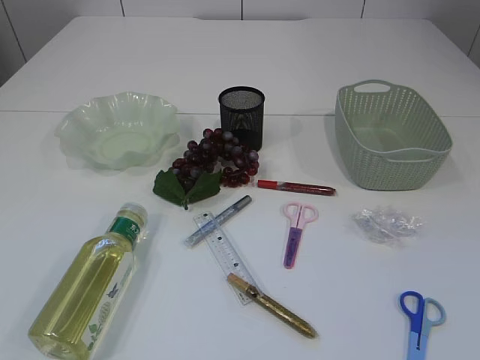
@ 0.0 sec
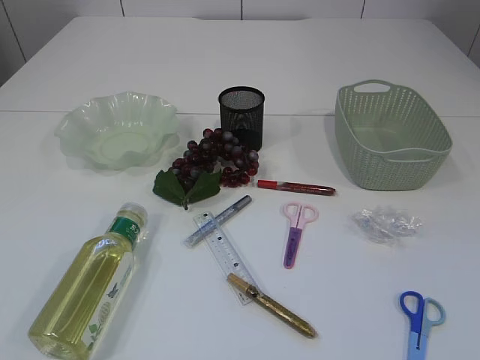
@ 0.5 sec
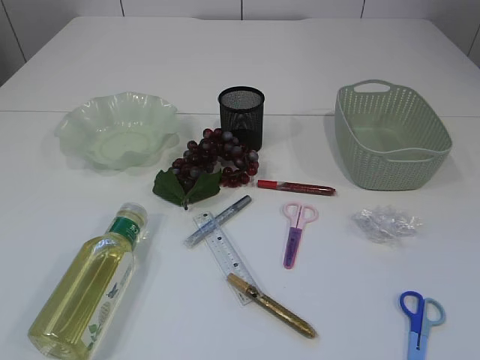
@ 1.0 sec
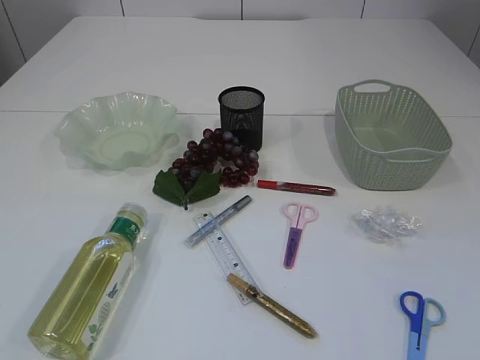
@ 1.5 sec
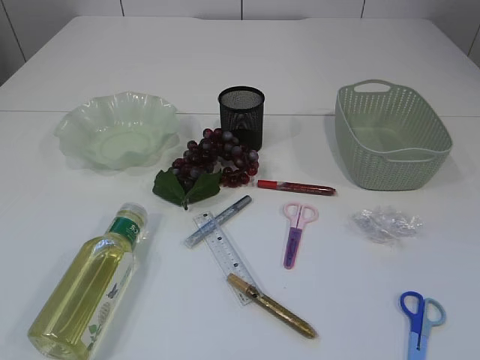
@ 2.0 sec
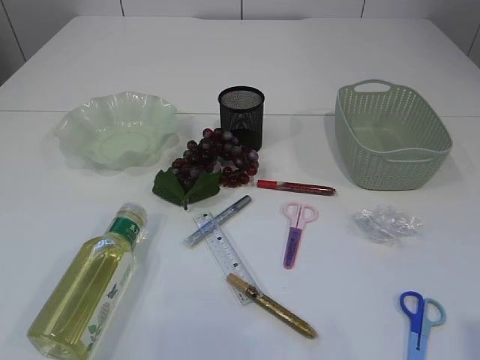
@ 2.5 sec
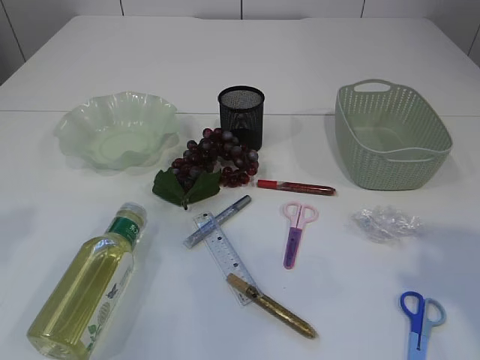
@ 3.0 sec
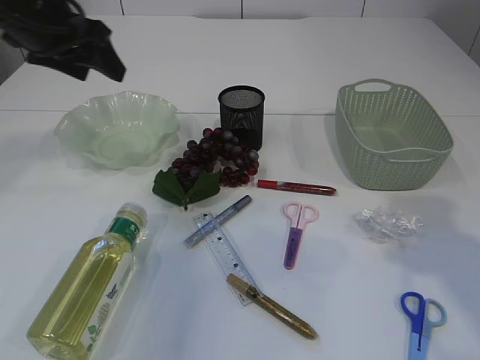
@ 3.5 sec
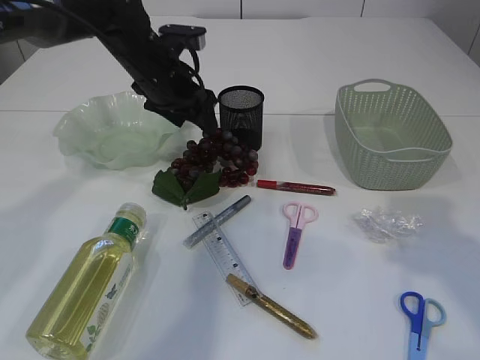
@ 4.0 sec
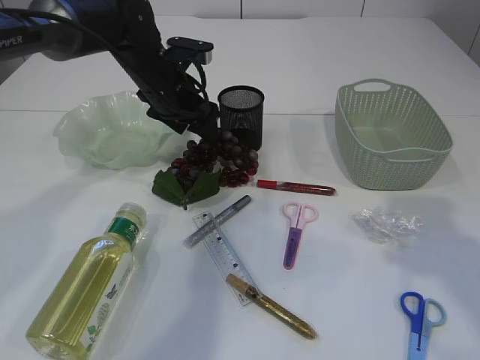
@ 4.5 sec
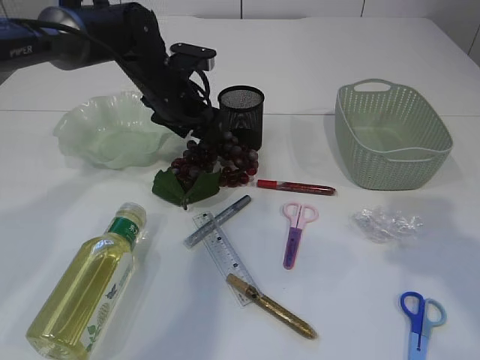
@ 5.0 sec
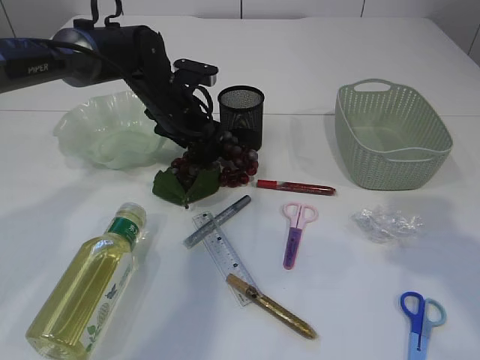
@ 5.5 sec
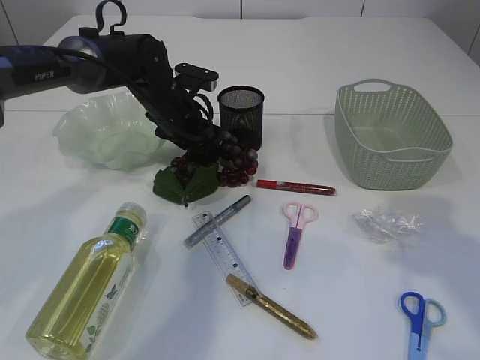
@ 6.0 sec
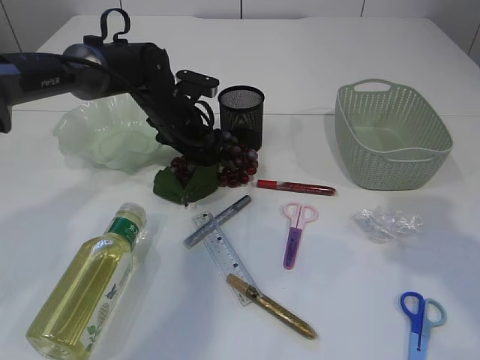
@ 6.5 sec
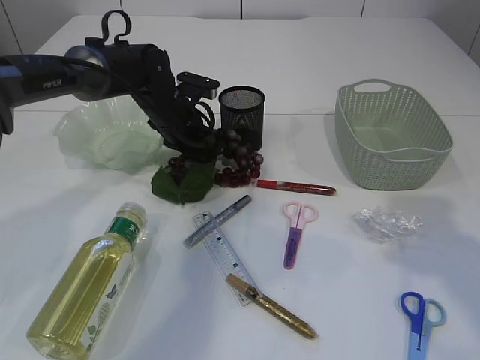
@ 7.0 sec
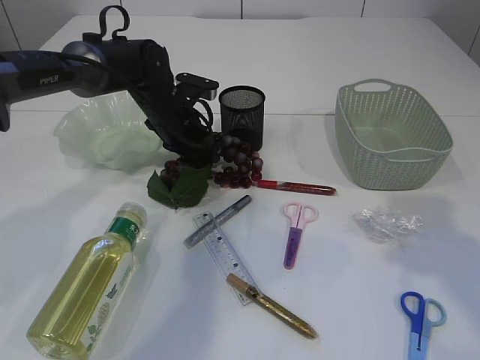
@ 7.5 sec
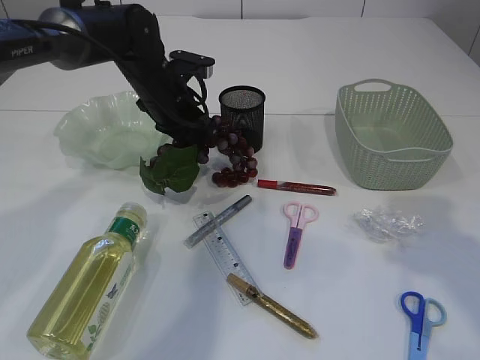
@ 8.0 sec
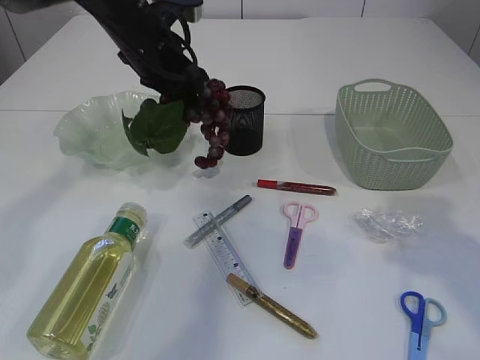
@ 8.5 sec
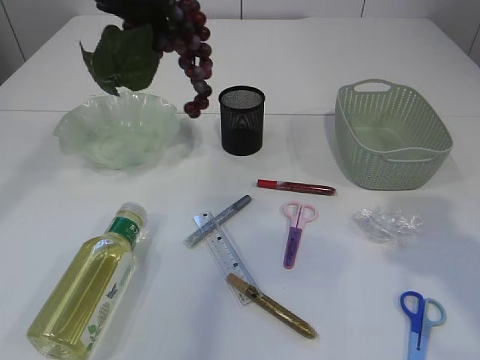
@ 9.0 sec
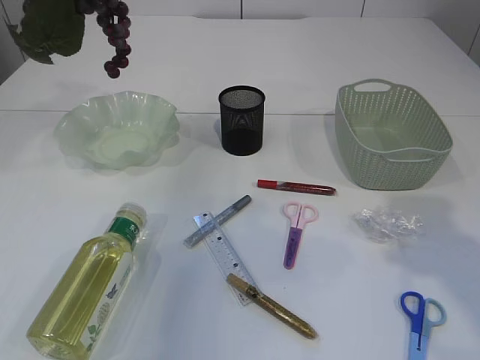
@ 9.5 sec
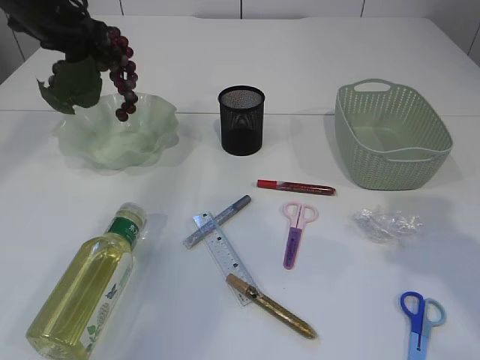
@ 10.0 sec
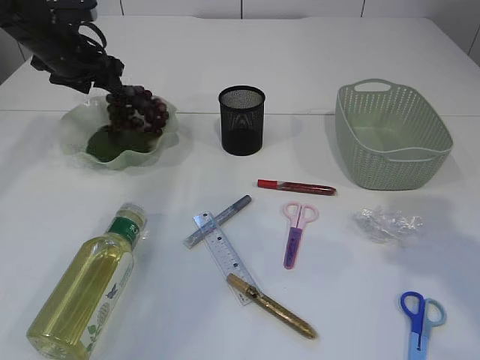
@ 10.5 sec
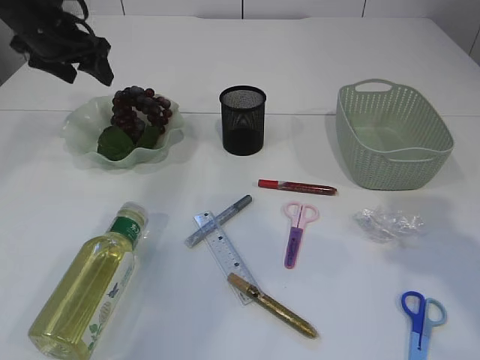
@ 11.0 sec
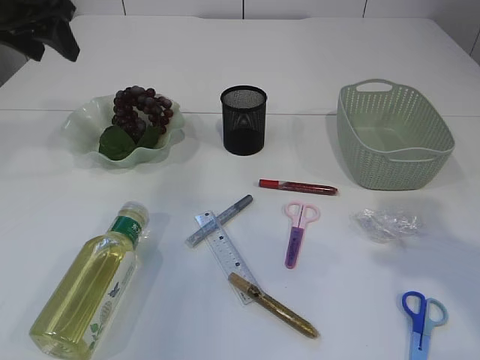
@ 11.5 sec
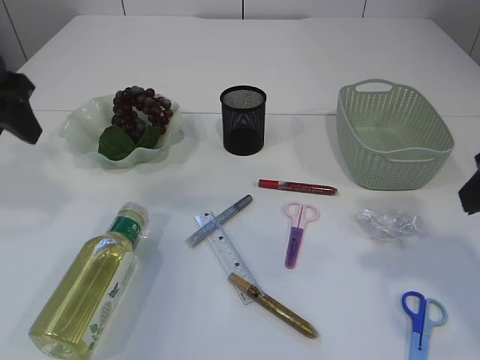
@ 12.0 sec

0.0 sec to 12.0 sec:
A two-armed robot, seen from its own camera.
Step, 0.0 sec to 9.0 sec: Pick up the grapes.
Step, 9.5 sec to 11.0 sec: Place the grapes in the plate.
2.0 sec to 4.0 sec: The left gripper moves forward and to the right, about 50 cm. Meanwhile the right gripper is displaced forward by approximately 20 cm.
4.0 sec to 6.0 sec: The left gripper heads downward, covering some 5 cm.
6.0 sec to 8.0 sec: The left gripper closes.
8.0 sec to 10.0 sec: The left gripper heads to the left and upward, covering some 20 cm.
10.0 sec to 12.0 sec: The left gripper shifts roughly 15 cm backward, and opens.

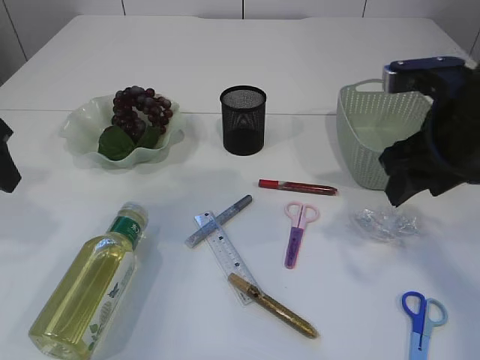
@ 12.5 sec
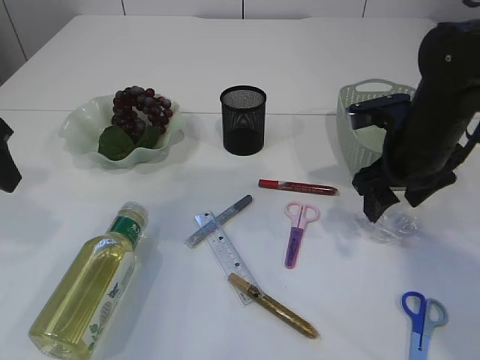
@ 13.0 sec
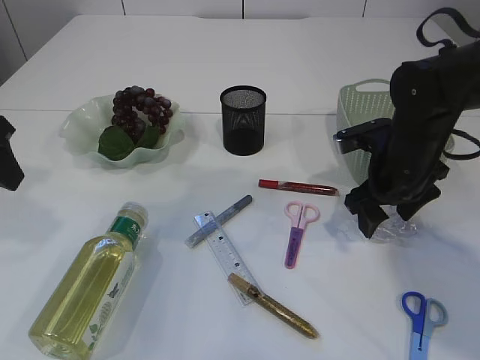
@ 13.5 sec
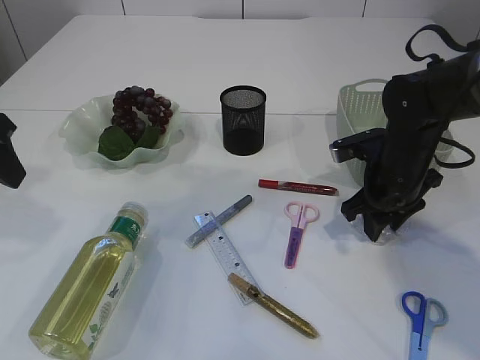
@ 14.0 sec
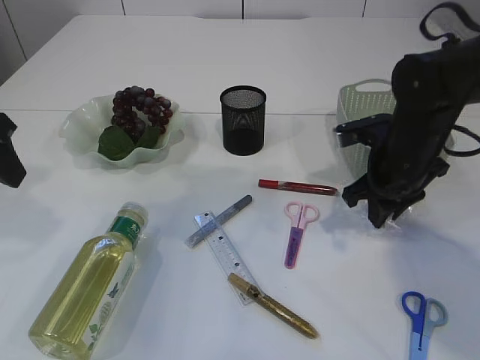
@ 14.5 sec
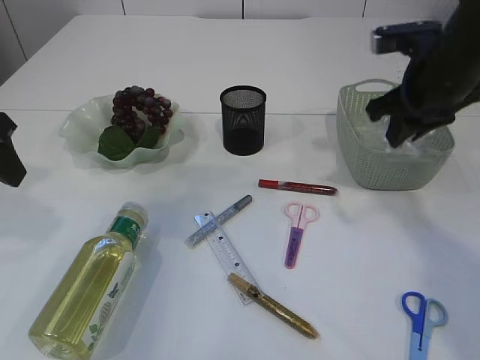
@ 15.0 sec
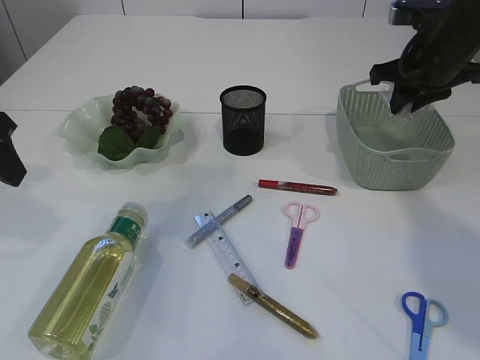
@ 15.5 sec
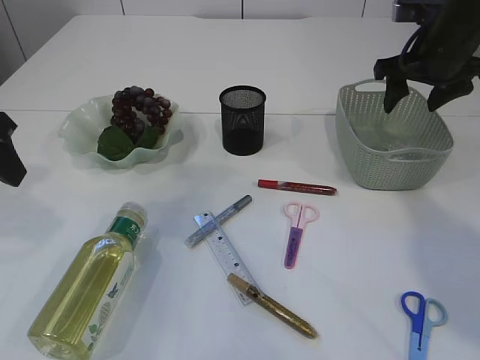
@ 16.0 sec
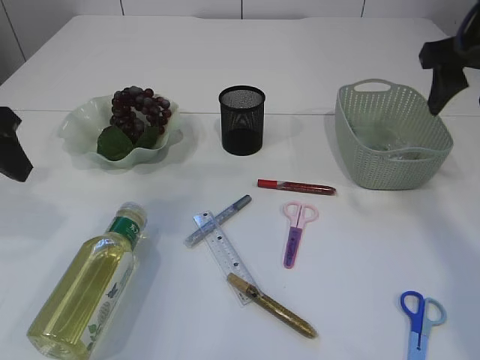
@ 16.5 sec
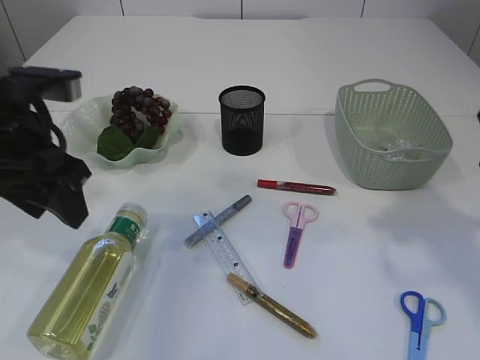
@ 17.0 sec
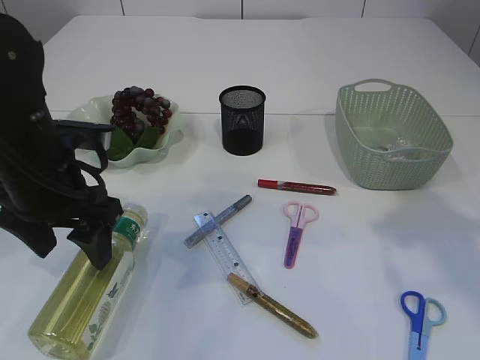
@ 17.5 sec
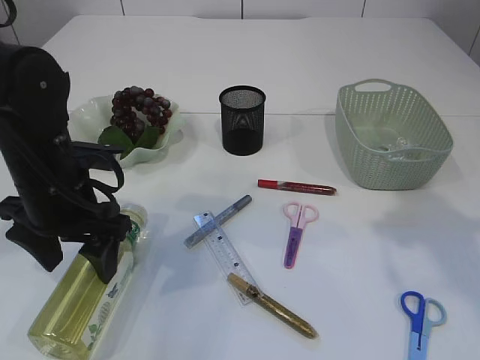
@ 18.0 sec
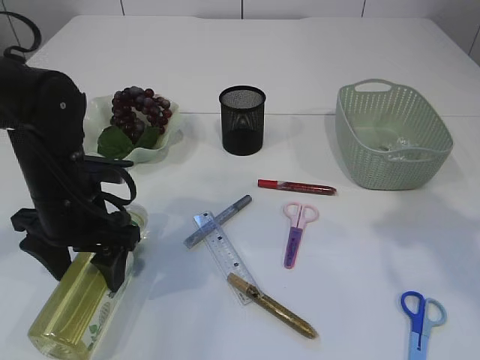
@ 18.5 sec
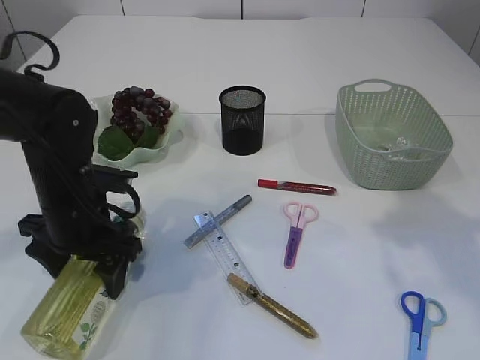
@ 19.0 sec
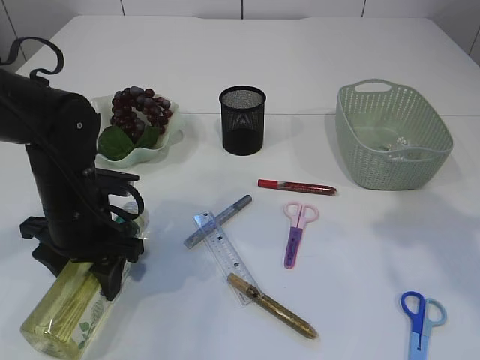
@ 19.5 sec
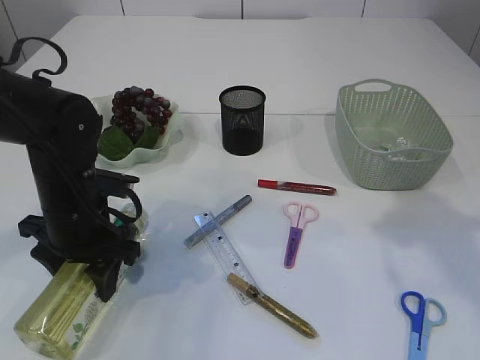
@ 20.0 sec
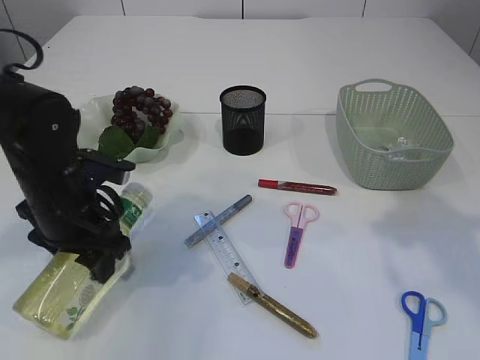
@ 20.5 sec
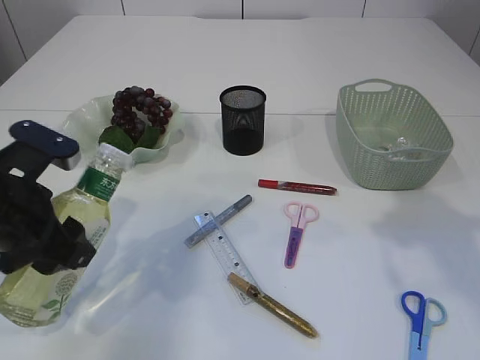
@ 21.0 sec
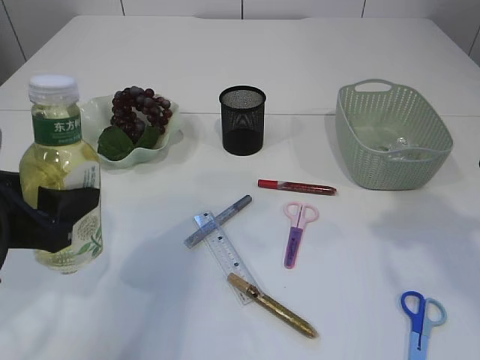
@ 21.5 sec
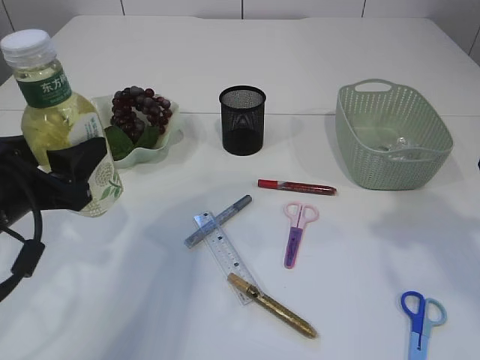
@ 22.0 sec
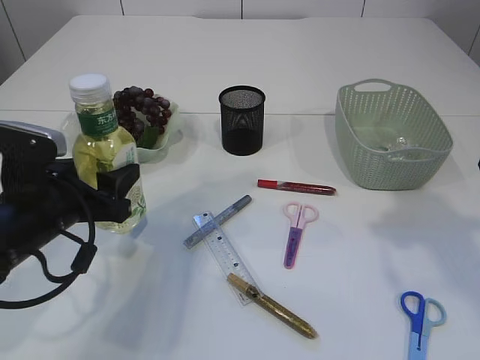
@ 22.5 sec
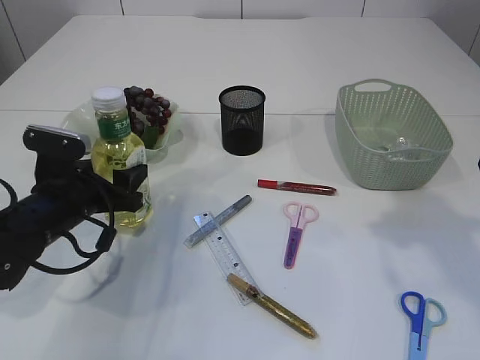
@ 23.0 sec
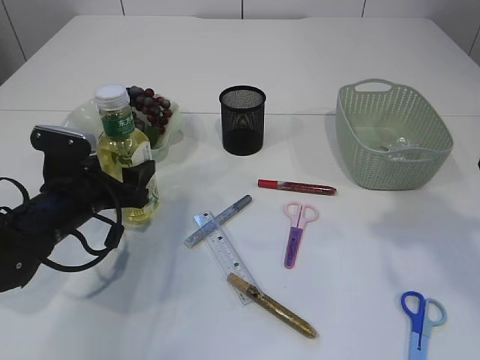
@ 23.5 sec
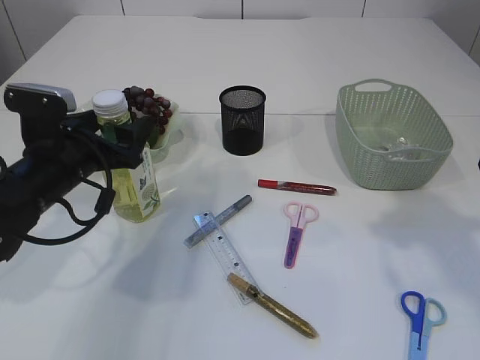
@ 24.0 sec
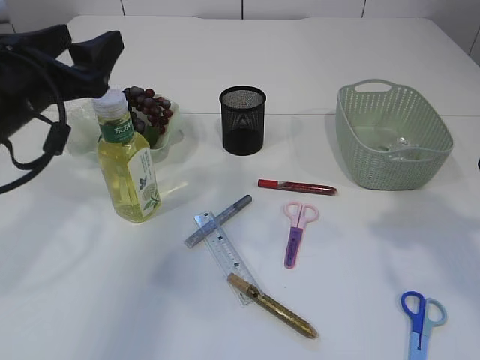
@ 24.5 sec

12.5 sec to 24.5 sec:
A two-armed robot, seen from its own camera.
Step, 12.5 sec to 14.5 sec: Pick up the plastic.
Step, 15.0 sec to 16.0 sec: Place the plastic in the basket.
Step, 16.5 sec to 21.0 sec: Pick up the bottle with the left arm.
12.5 sec to 14.5 sec: The right gripper travels downward and forward by about 15 cm, and closes its fingers.
14.5 sec to 16.5 sec: The right gripper heads upward, covering approximately 15 cm, and opens its fingers.
16.5 sec to 18.5 sec: The left gripper shifts some 15 cm downward and to the right, and opens up. Meanwhile the right gripper is displaced backward by about 10 cm.
18.5 sec to 20.5 sec: There are only small adjustments of the grippers.
22.5 sec to 24.5 sec: The left gripper moves upward, roughly 10 cm.

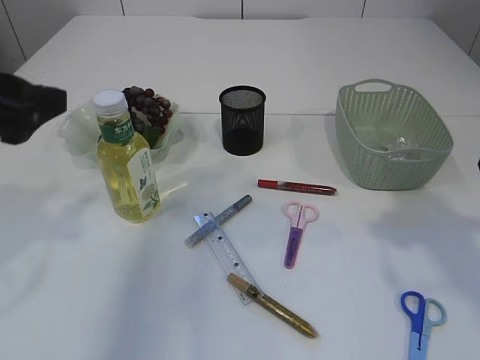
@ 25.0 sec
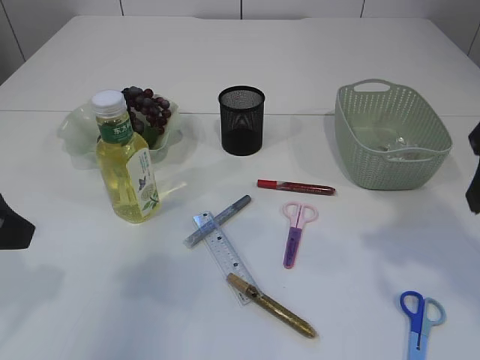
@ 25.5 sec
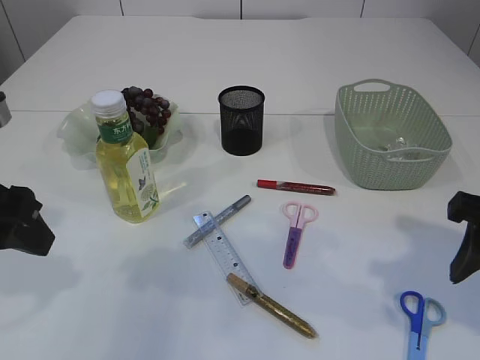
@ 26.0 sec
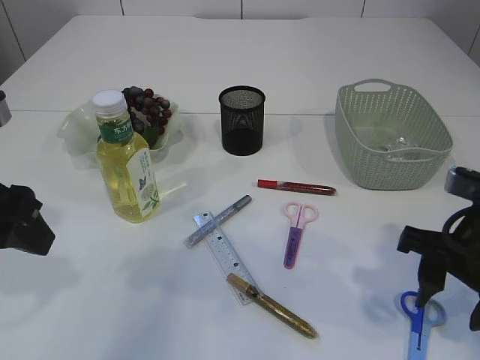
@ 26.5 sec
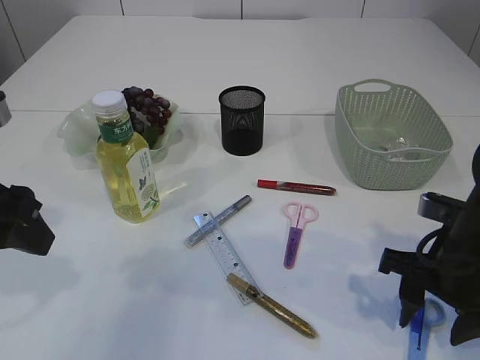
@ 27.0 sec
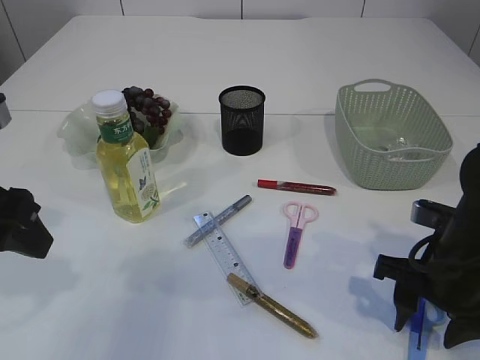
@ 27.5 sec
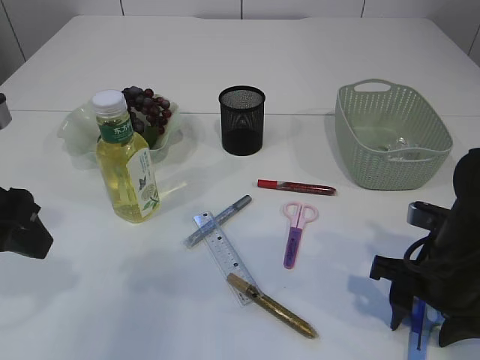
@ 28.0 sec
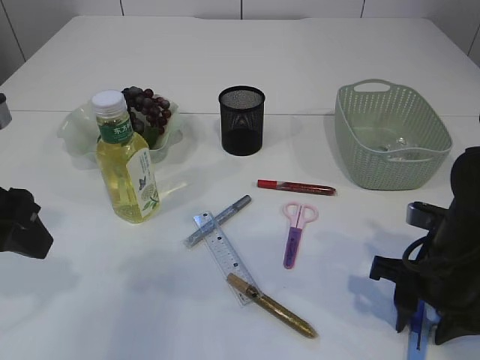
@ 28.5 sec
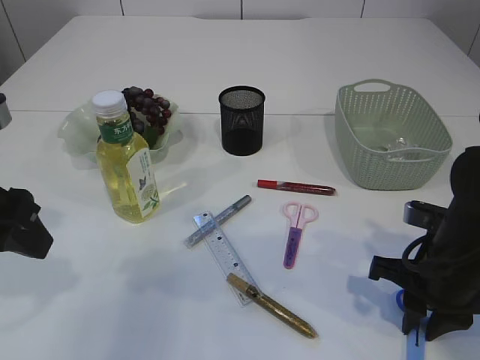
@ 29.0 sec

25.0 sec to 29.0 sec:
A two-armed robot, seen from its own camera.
25.0 sec to 27.0 sec: The right gripper travels downward by about 15 cm.
27.0 sec to 29.0 sec: The right gripper closes up.
